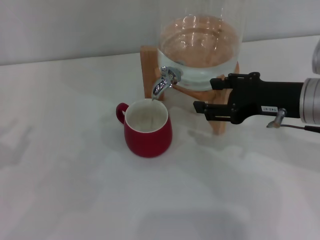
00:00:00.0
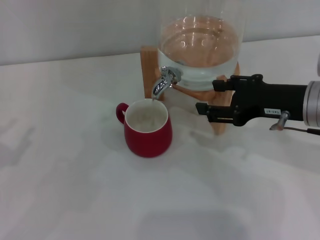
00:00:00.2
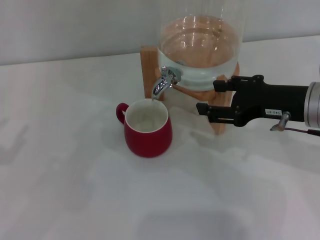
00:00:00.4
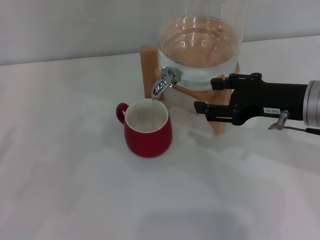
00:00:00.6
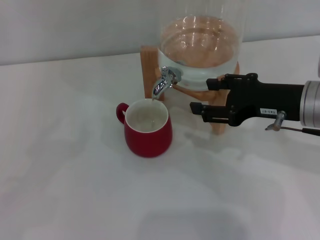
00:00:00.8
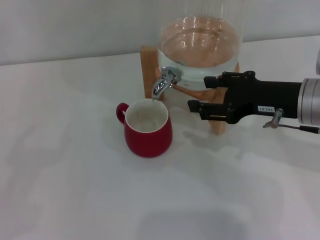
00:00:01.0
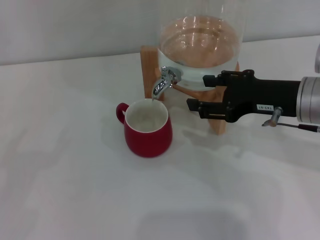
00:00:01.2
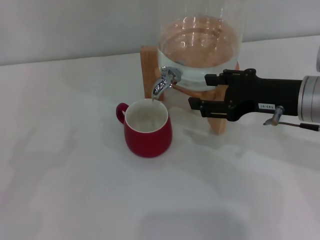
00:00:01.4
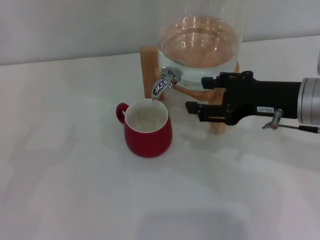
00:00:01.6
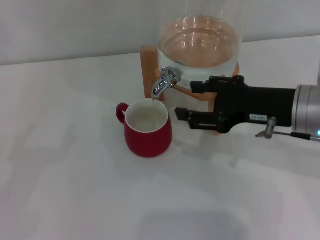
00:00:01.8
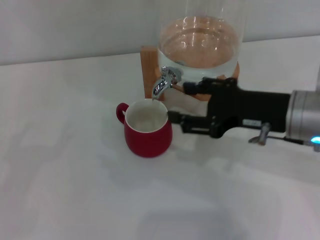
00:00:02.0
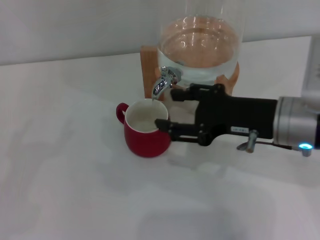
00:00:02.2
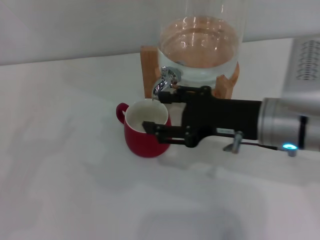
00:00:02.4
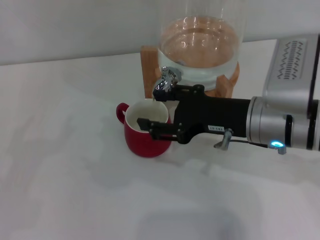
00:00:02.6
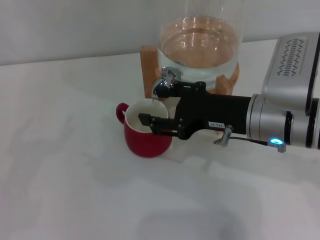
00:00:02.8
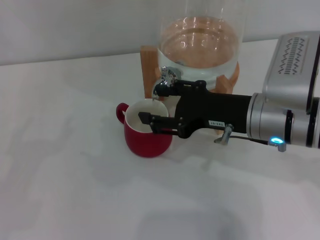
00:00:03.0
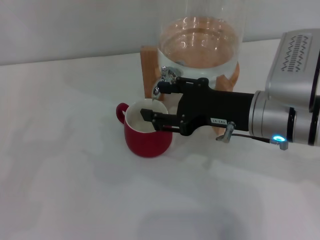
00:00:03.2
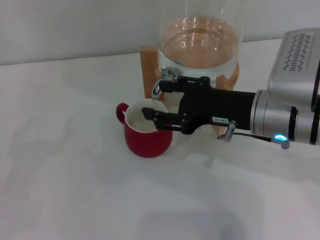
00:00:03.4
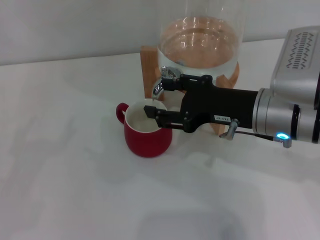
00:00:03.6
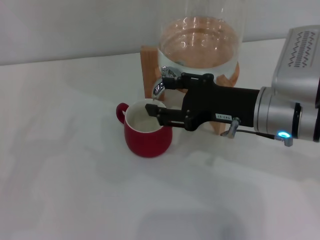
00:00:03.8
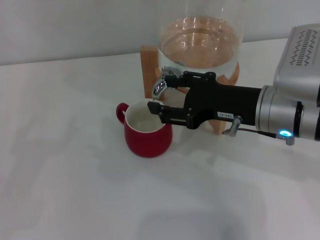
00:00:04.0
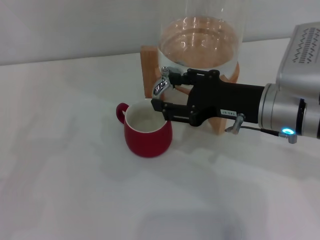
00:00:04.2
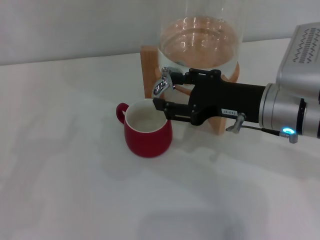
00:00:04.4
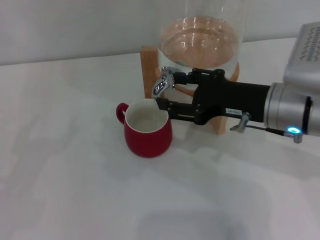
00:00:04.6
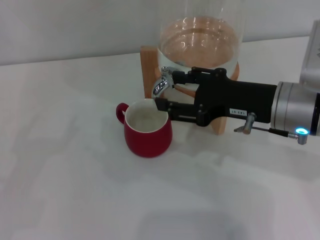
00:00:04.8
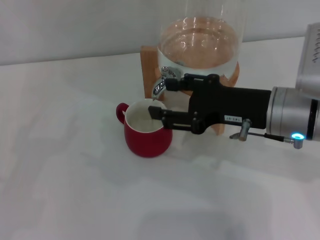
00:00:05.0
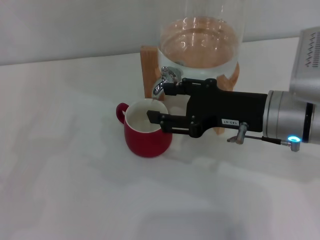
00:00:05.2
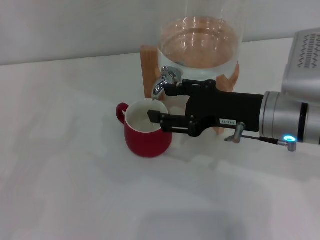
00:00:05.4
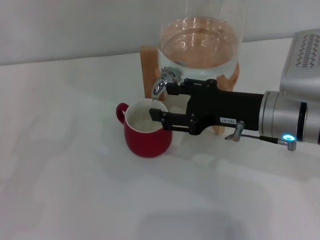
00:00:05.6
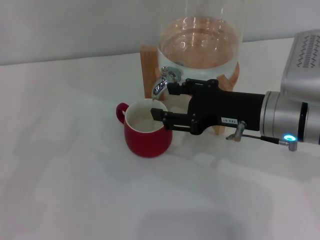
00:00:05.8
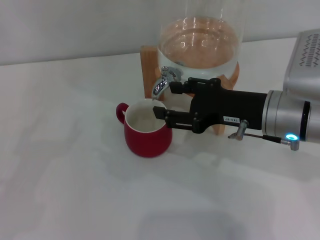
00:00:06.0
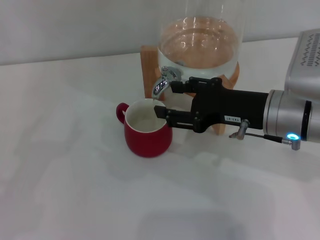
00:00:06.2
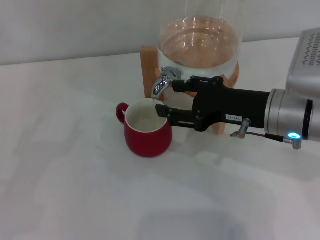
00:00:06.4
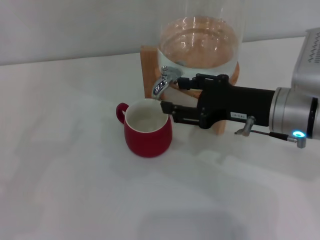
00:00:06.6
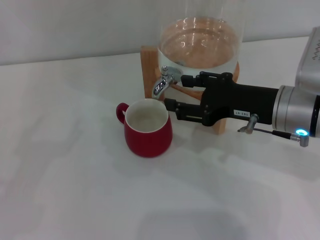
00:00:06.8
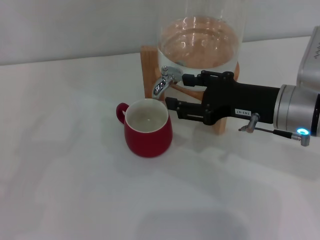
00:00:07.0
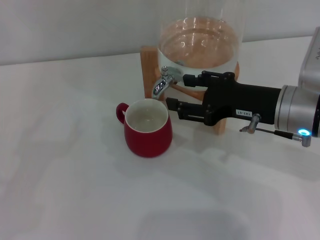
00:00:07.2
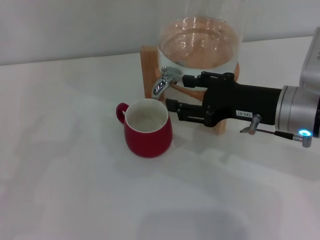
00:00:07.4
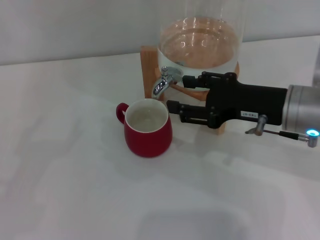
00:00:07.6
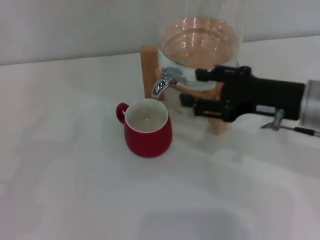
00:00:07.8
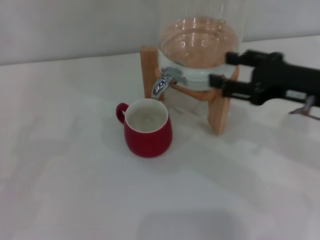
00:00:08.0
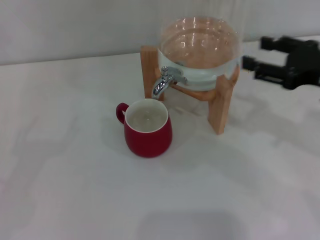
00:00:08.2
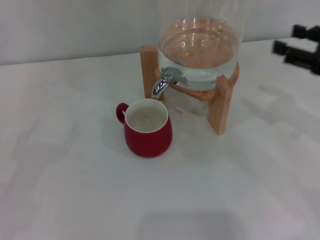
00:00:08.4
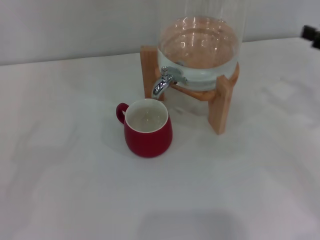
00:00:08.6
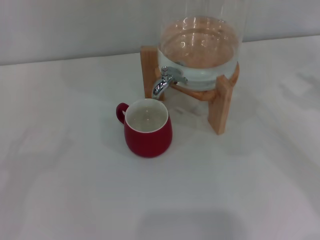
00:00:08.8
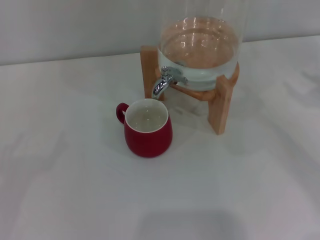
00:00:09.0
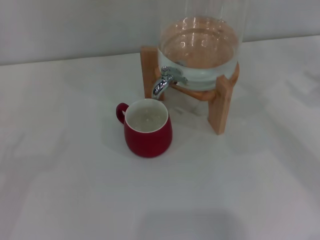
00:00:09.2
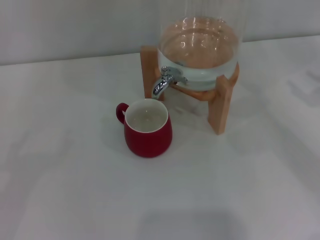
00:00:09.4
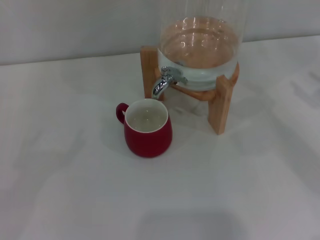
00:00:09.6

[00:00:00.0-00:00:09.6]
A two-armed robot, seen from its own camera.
Task of the whole recording: the left gripper pick up the red cup and place it horizontally under the faucet, the right gripper turn on the faucet to fill the cup, and then turn off the faucet.
Step, 00:00:00.0 to 00:00:05.0: Close the dispenser valve with the right gripper.
00:00:01.6 to 00:00:03.2: The right gripper travels to the left by approximately 5 cm.
00:00:03.2 to 00:00:06.4: The grippers move only a little.
00:00:06.4 to 00:00:08.0: The right gripper is displaced to the right by approximately 5 cm.
00:00:08.0 to 00:00:09.6: The right gripper heads to the right, covering roughly 15 cm.
